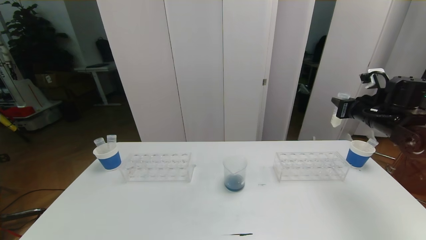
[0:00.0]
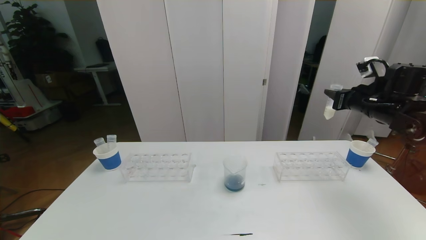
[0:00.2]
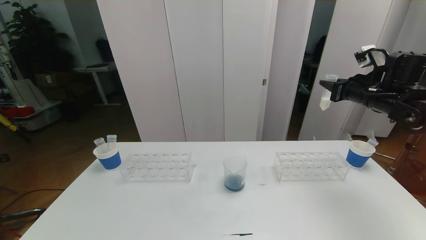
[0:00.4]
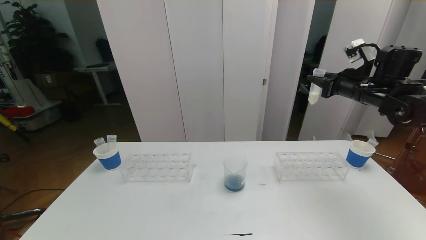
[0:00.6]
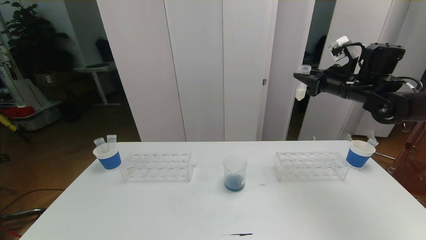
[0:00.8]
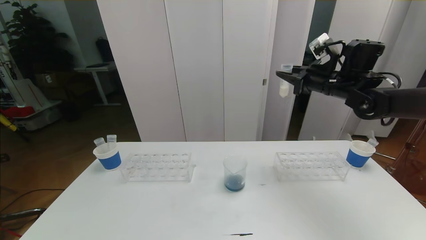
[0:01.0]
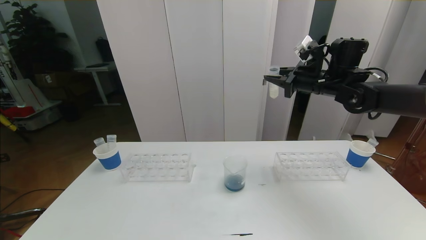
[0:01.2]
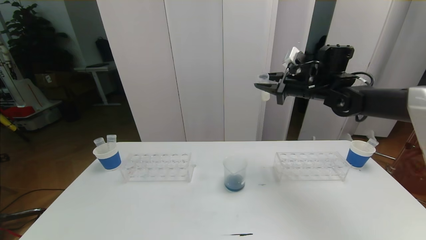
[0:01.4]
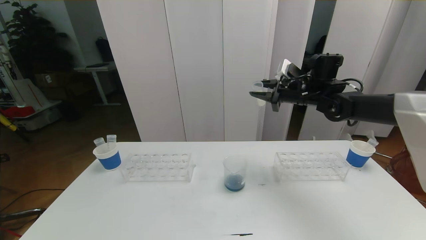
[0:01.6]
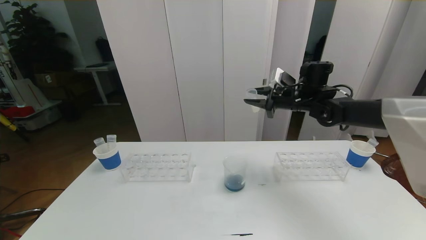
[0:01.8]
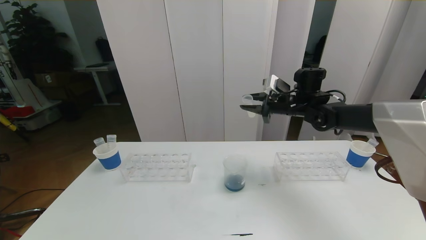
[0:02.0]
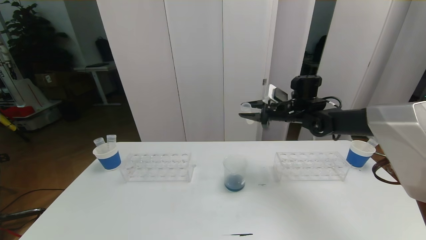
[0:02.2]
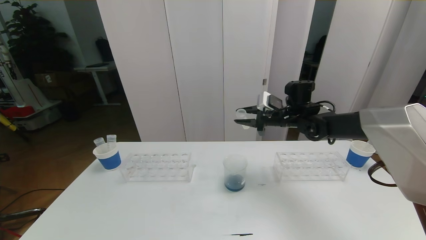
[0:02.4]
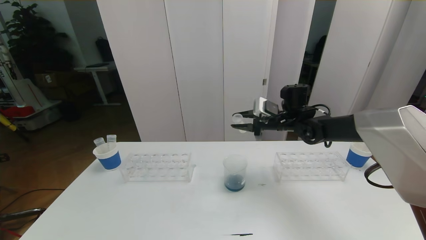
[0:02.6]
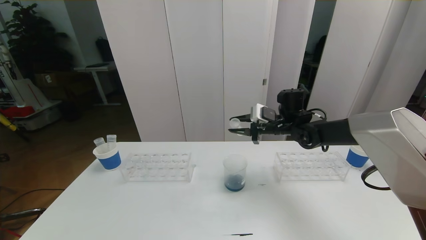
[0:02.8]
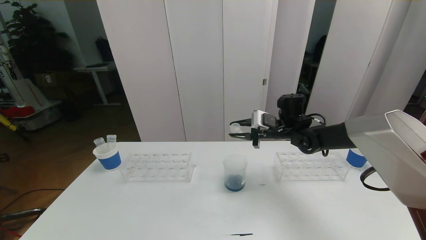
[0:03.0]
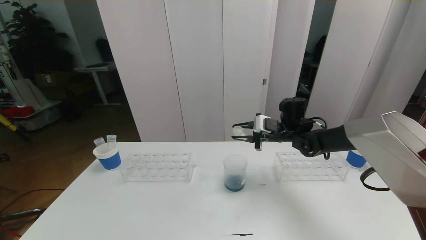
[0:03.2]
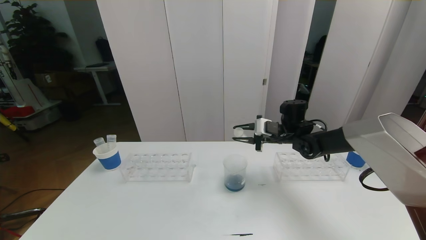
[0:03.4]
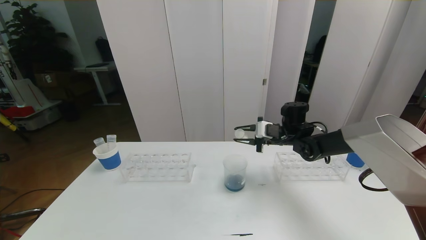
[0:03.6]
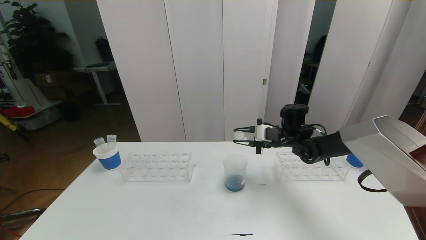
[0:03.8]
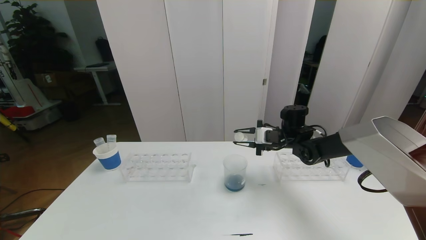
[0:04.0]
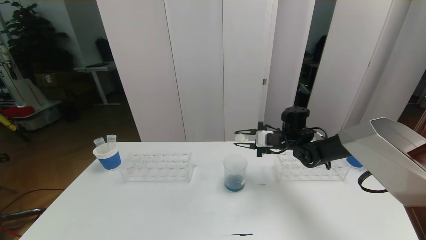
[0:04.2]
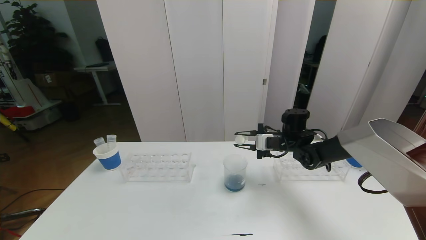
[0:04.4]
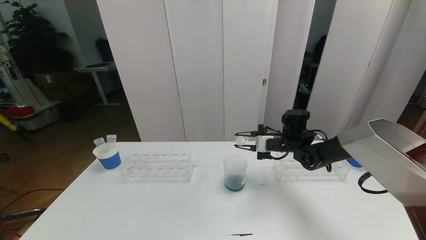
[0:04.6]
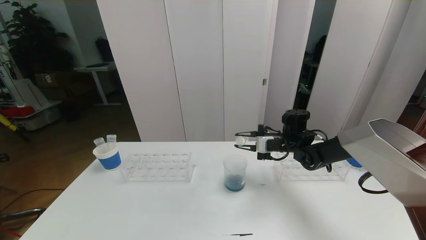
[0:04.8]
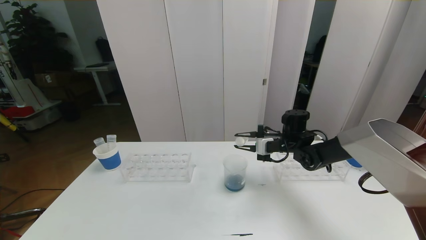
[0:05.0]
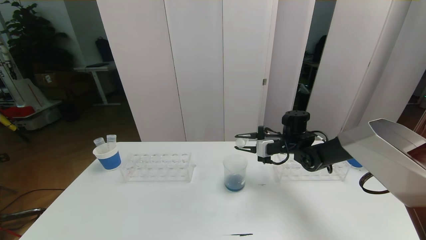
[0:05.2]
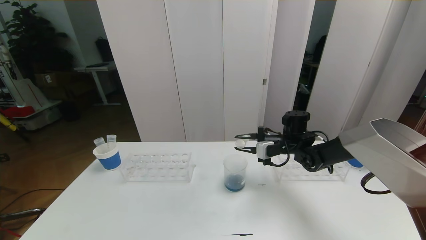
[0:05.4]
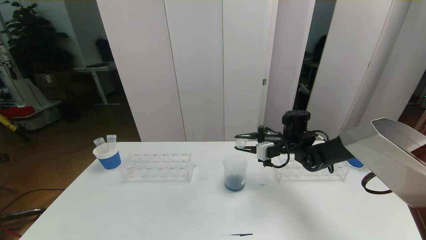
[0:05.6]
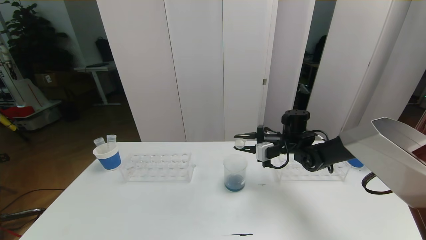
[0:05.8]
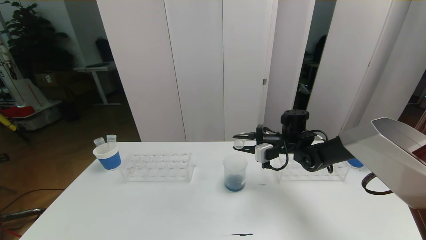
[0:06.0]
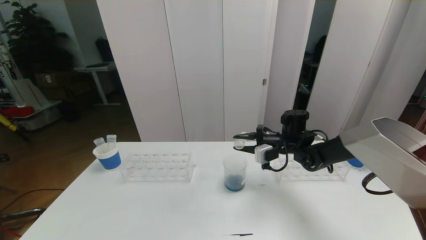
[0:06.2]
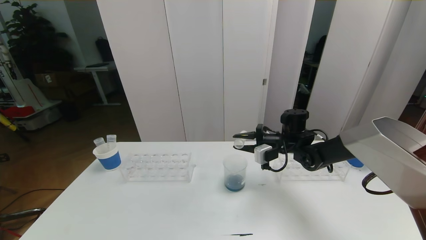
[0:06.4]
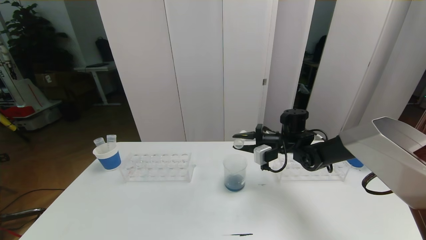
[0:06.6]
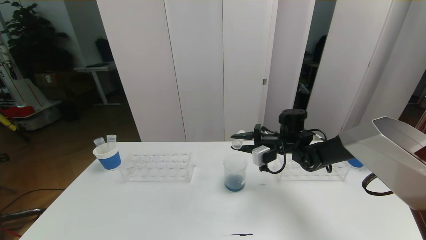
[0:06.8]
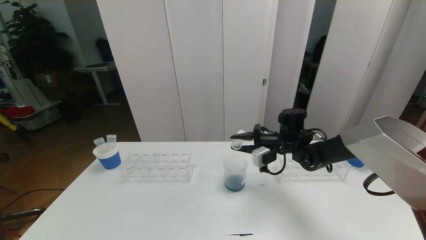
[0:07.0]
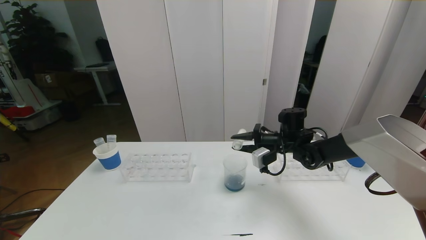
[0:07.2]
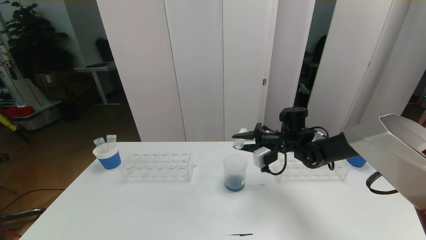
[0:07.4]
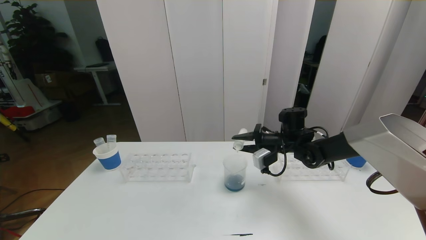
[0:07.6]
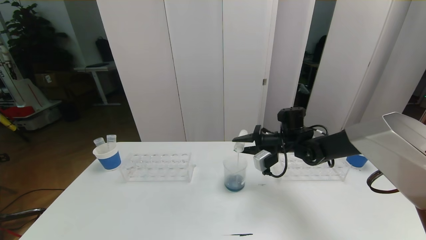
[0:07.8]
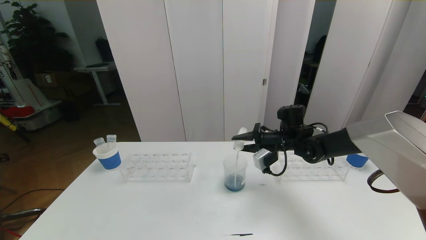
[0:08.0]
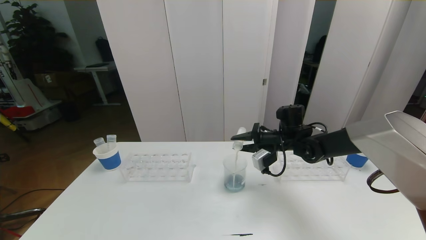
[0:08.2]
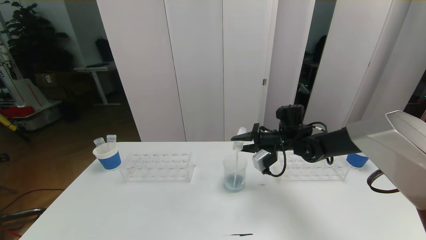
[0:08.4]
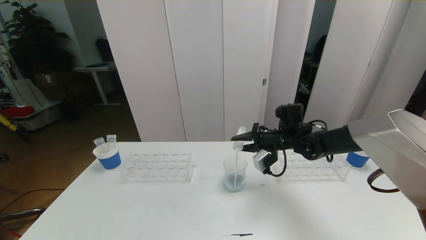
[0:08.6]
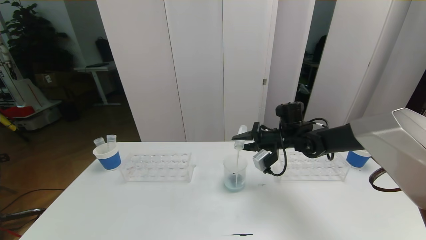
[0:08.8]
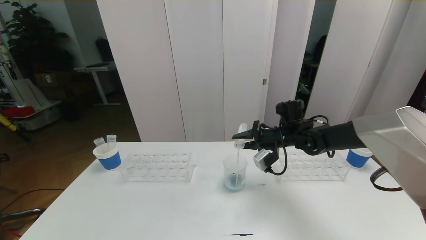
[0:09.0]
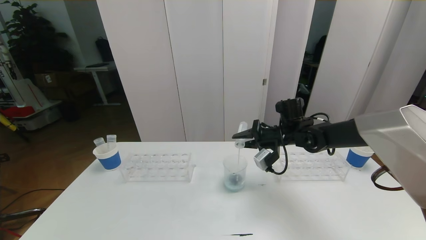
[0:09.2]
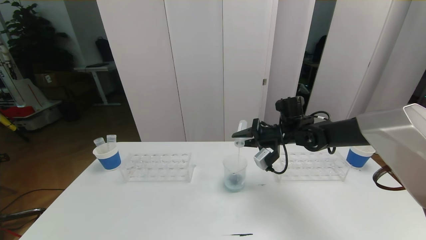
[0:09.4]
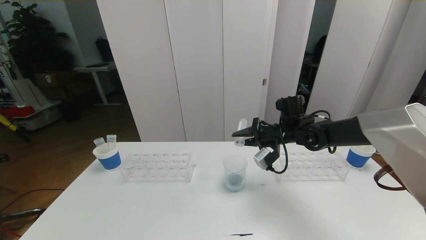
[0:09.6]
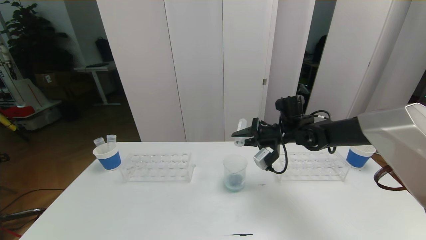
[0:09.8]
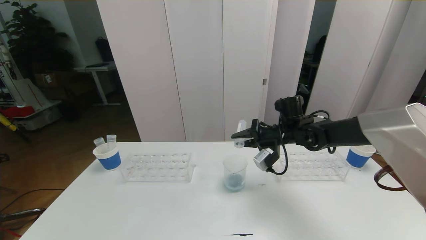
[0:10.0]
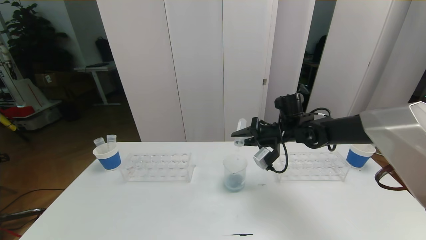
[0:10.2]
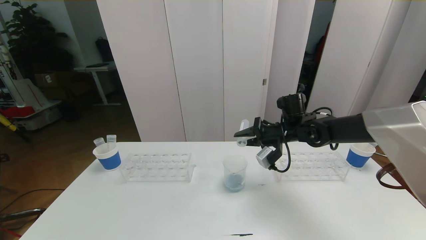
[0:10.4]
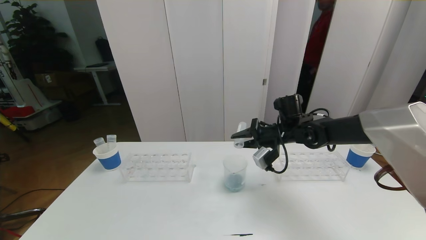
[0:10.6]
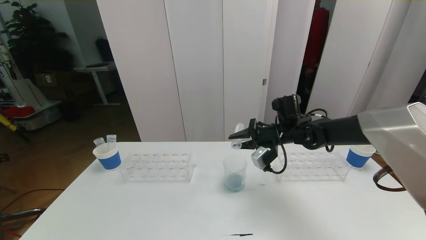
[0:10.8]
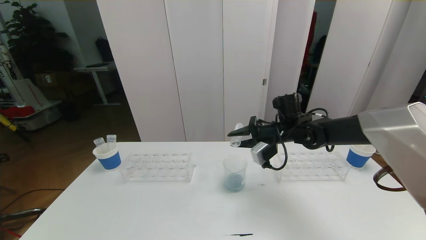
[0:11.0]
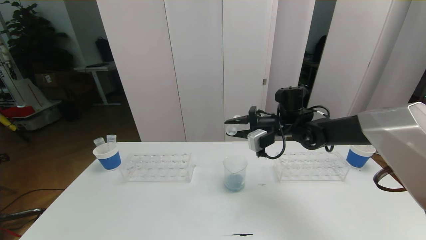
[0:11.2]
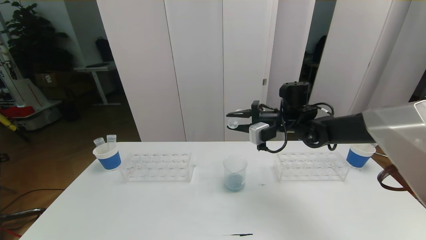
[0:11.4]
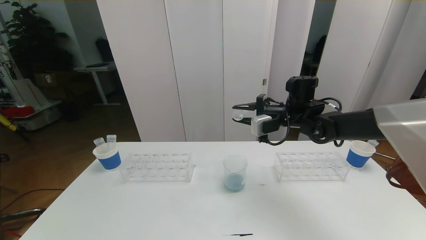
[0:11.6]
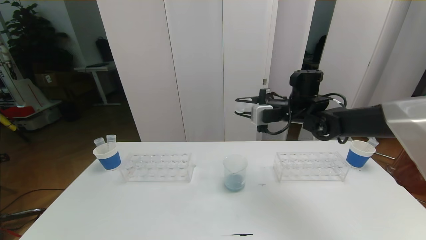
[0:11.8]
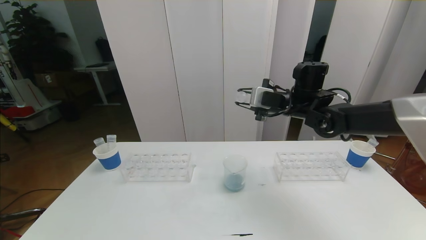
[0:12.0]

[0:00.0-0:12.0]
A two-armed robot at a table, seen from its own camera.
Task of the whole recording: pick up the test tube with red pigment the test tube with blue pigment and the test tube with white pigment by grippers and pour them into the beaker.
0:00.0 to 0:01.6: The right gripper travels to the left and forward by roughly 15 cm.
0:01.6 to 0:03.0: The right gripper shifts approximately 10 cm downward.
0:03.0 to 0:04.4: The grippers move only a little.
0:04.4 to 0:06.0: The grippers stay close to where they were, moving slightly.
0:06.0 to 0:07.6: There are only small adjustments of the grippers.
0:07.6 to 0:09.0: The grippers make only small movements.
0:09.0 to 0:10.4: The grippers make only small movements.
0:10.4 to 0:12.0: The right gripper moves upward, about 10 cm.

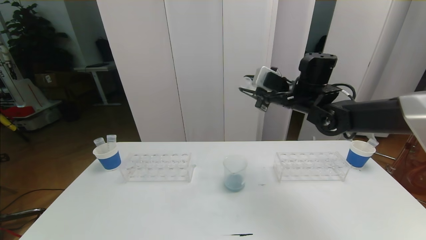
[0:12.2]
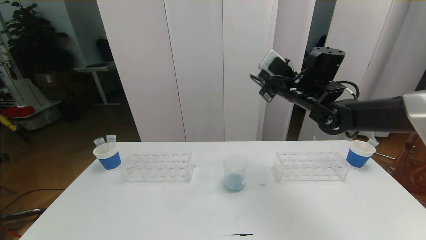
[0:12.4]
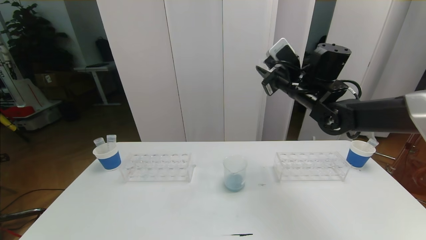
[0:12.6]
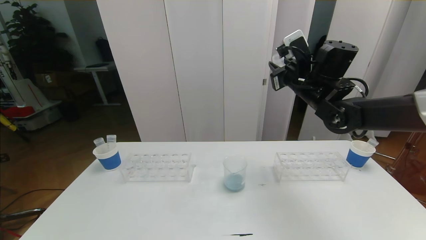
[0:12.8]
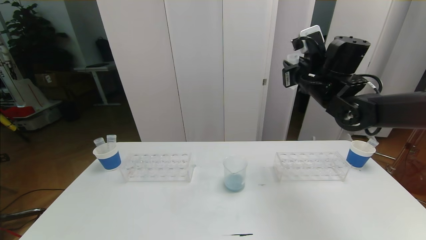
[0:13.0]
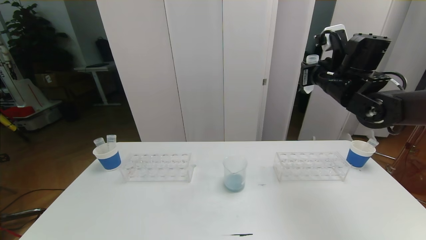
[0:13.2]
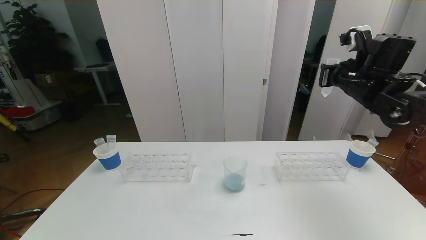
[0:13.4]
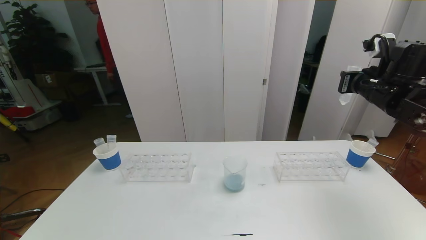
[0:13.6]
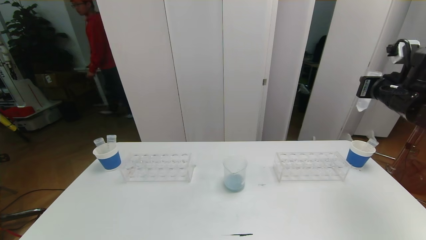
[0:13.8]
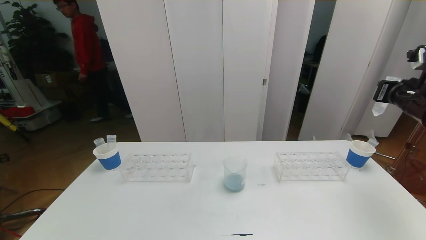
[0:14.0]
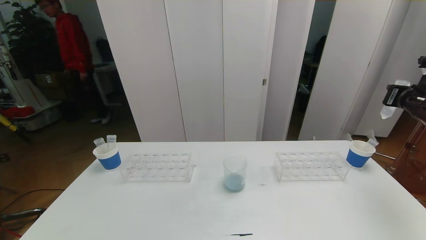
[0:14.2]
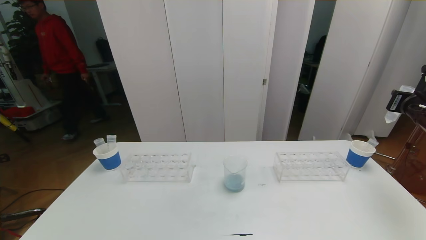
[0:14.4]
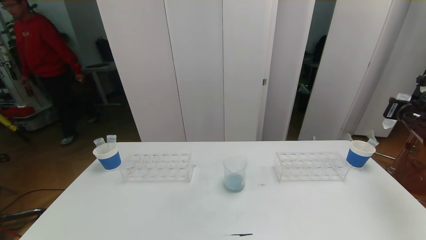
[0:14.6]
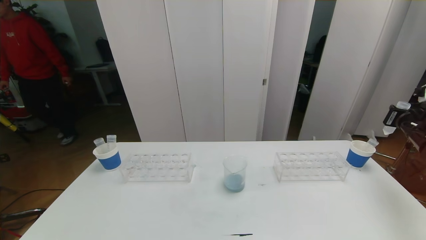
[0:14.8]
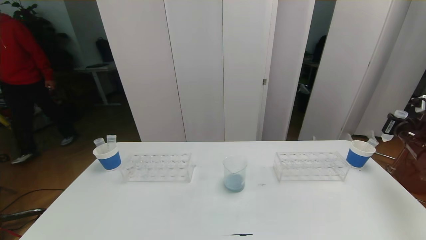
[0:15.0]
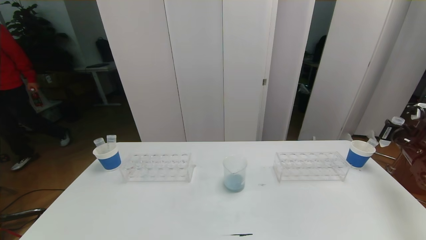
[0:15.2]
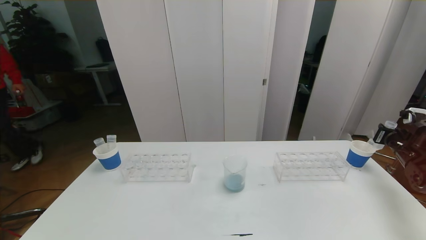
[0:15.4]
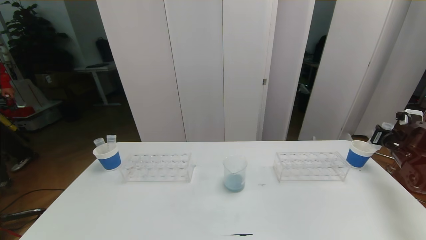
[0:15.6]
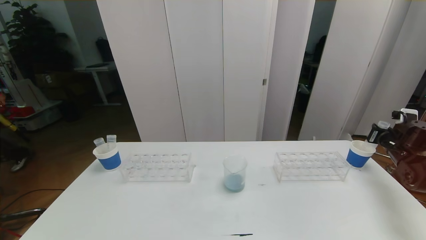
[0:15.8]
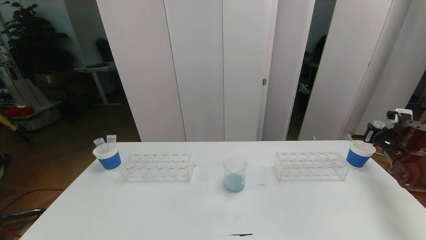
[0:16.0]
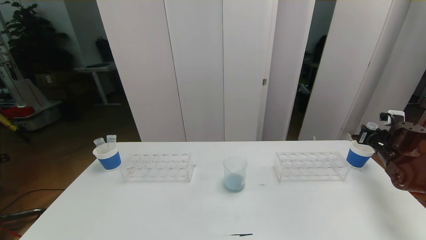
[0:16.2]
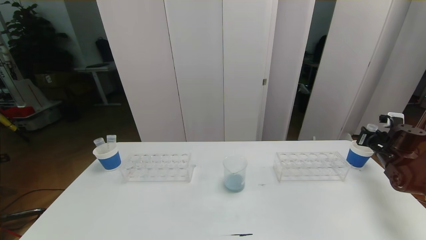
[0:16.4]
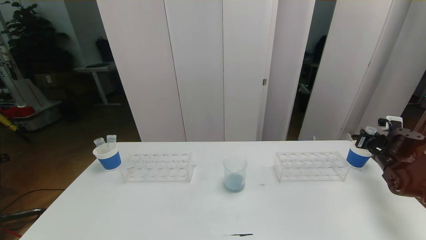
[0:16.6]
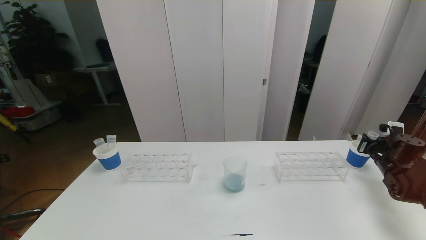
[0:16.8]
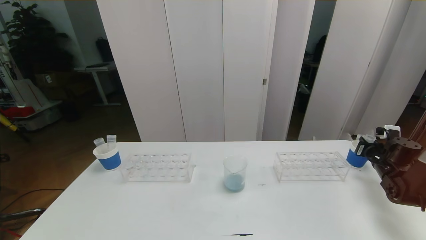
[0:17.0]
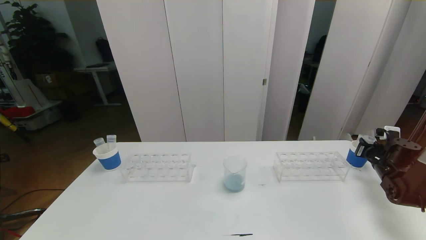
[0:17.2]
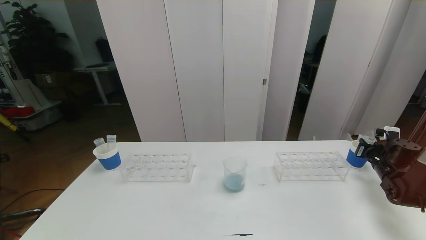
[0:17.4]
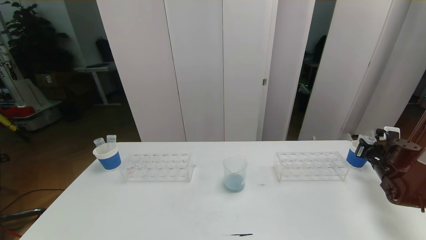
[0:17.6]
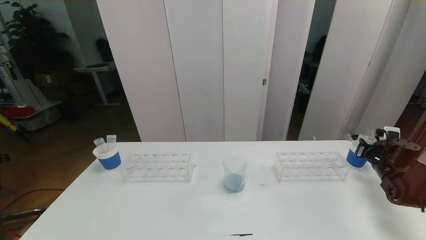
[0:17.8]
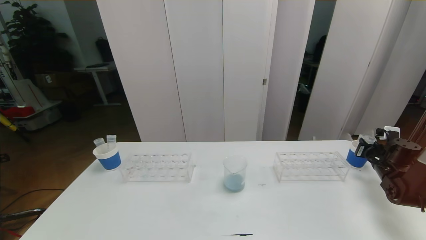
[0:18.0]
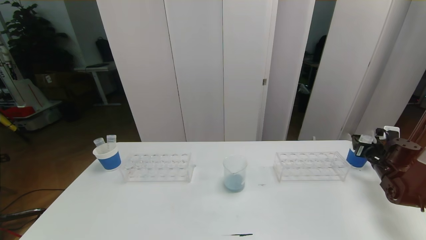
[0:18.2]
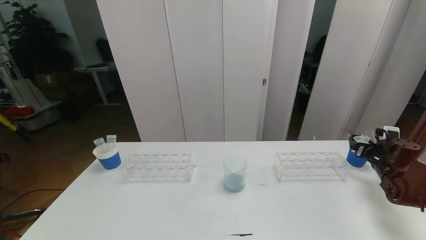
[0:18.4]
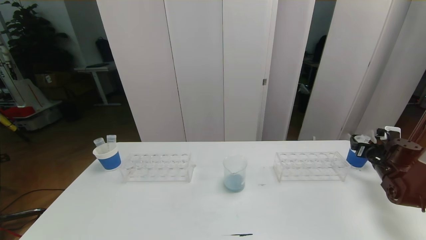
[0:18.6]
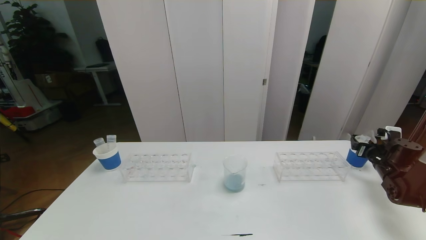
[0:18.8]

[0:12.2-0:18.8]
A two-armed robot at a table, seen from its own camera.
Task of the whole recording: pick up the test tube with red pigment the test tube with blue pigment and the test tube with white pigment by grippers and pour them into the beaker.
0:12.2 to 0:13.8: The right gripper shifts some 20 cm to the right.
0:13.8 to 0:15.4: The right gripper moves downward and to the right, approximately 20 cm.
0:15.4 to 0:17.2: The right gripper moves downward, roughly 5 cm.
